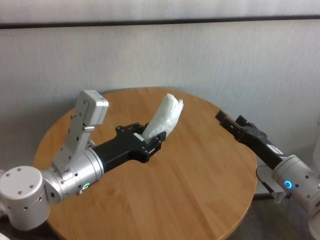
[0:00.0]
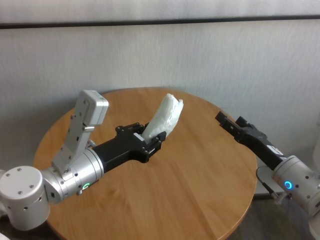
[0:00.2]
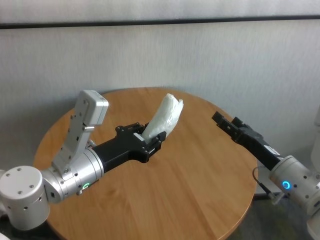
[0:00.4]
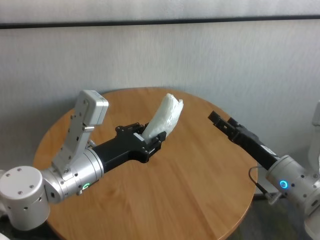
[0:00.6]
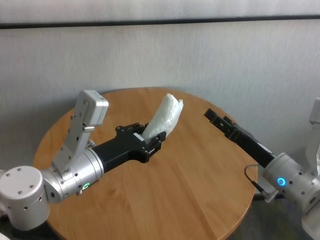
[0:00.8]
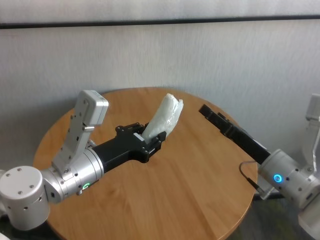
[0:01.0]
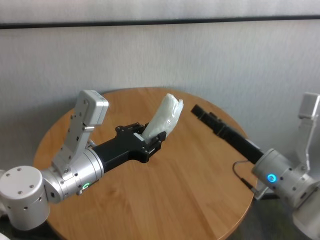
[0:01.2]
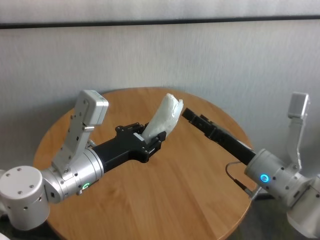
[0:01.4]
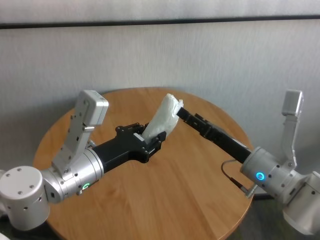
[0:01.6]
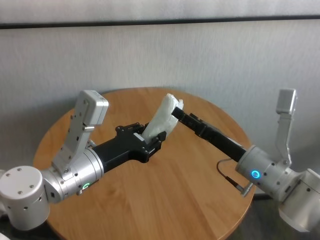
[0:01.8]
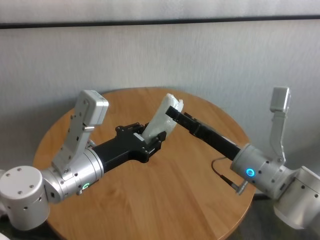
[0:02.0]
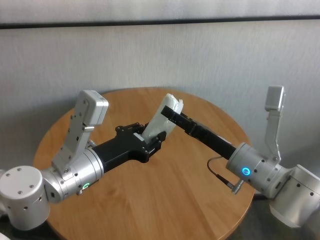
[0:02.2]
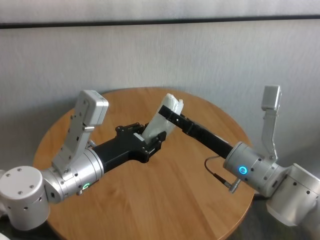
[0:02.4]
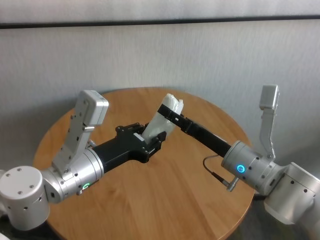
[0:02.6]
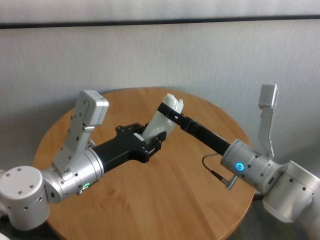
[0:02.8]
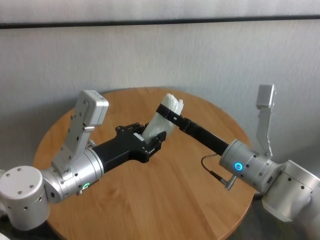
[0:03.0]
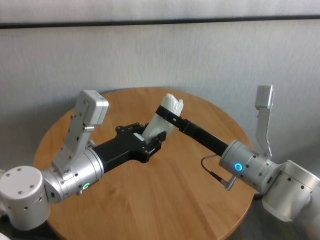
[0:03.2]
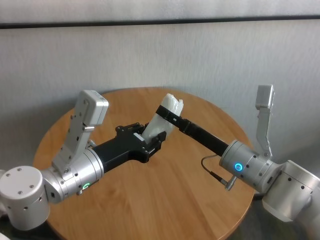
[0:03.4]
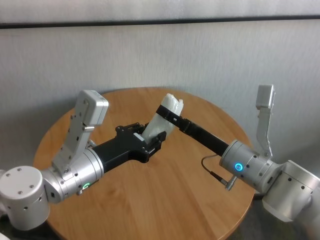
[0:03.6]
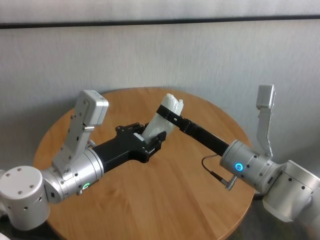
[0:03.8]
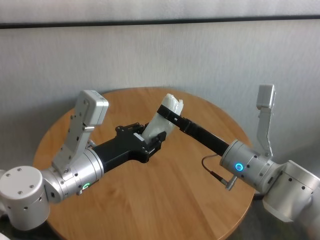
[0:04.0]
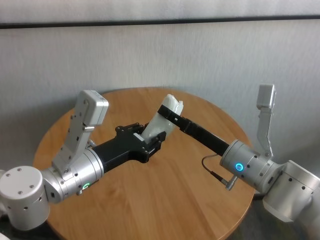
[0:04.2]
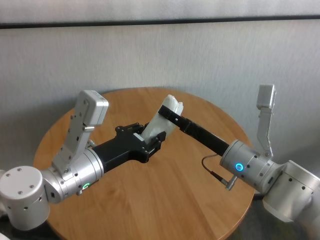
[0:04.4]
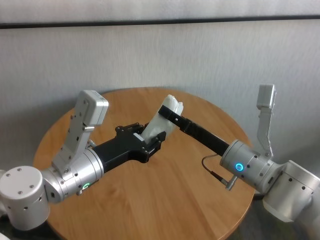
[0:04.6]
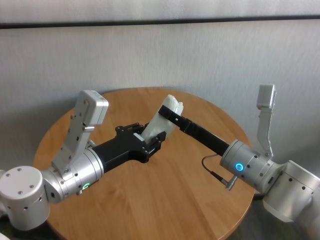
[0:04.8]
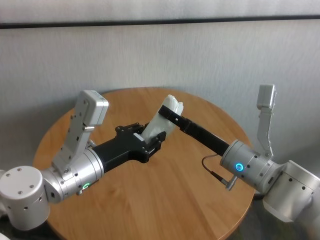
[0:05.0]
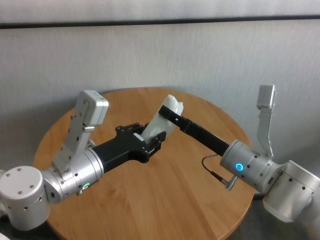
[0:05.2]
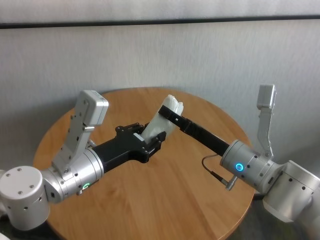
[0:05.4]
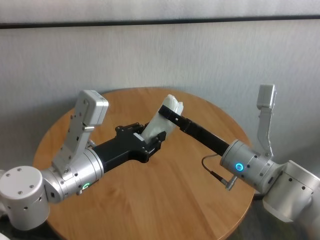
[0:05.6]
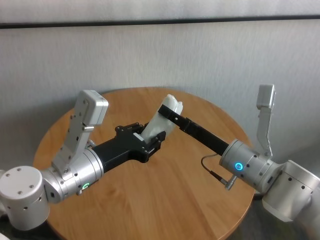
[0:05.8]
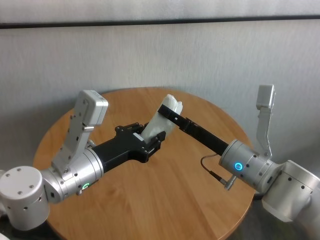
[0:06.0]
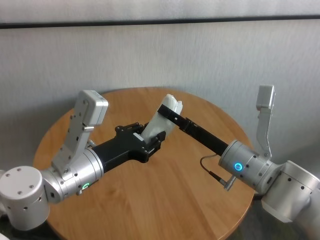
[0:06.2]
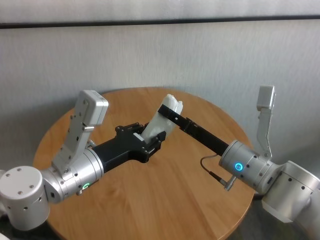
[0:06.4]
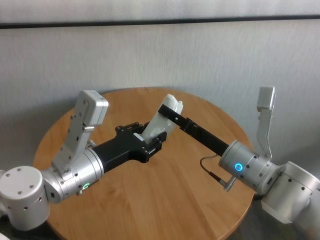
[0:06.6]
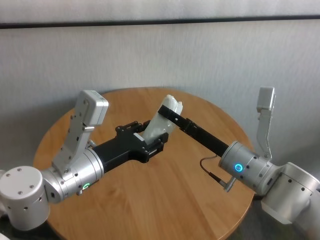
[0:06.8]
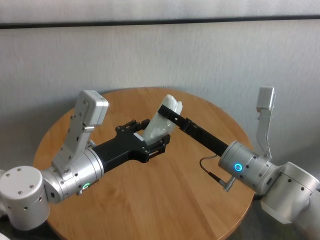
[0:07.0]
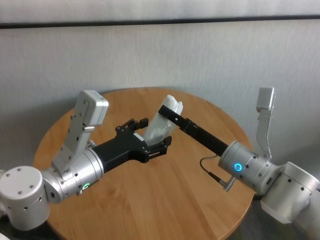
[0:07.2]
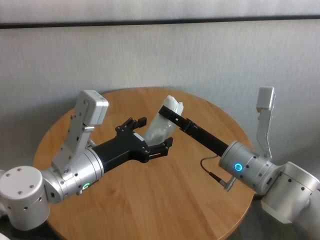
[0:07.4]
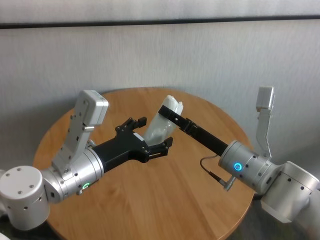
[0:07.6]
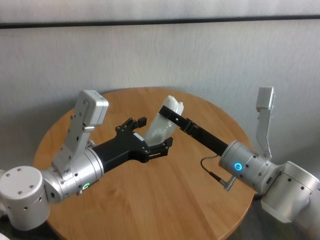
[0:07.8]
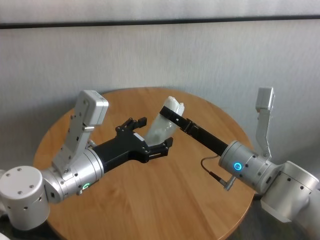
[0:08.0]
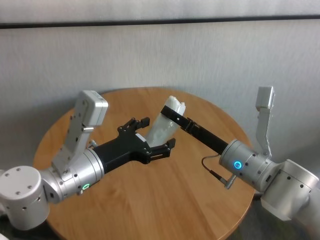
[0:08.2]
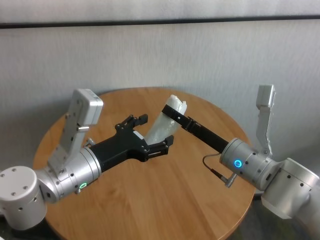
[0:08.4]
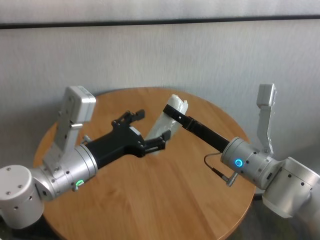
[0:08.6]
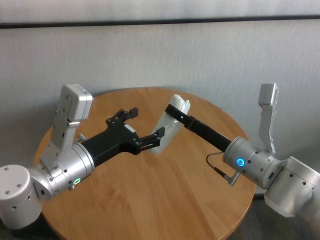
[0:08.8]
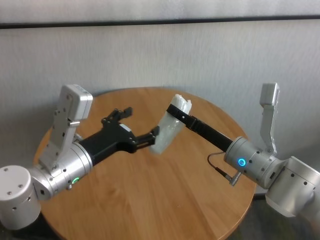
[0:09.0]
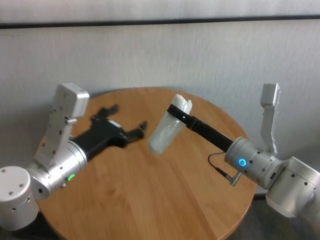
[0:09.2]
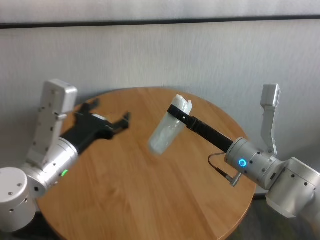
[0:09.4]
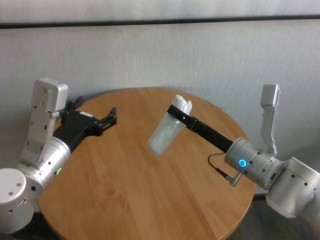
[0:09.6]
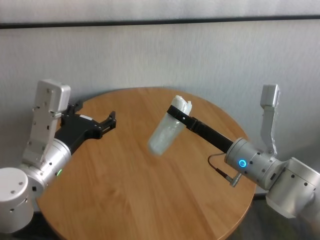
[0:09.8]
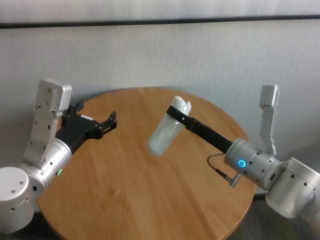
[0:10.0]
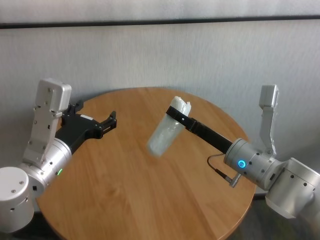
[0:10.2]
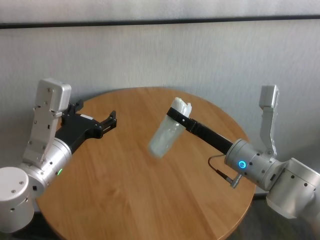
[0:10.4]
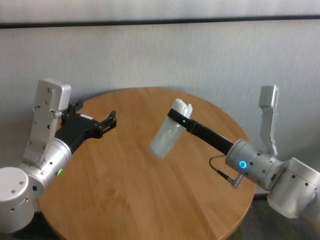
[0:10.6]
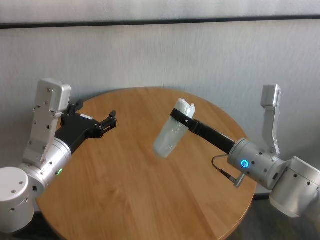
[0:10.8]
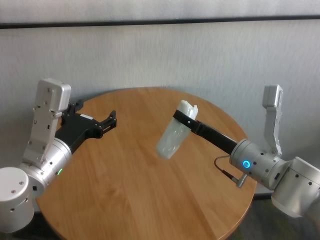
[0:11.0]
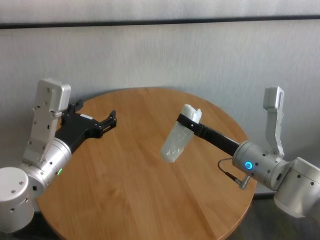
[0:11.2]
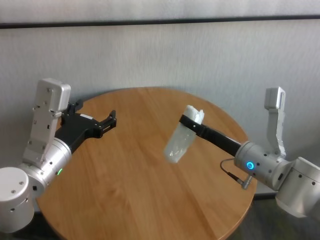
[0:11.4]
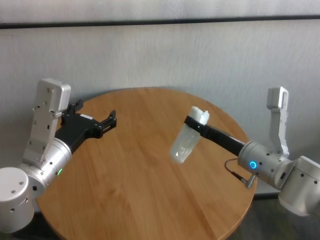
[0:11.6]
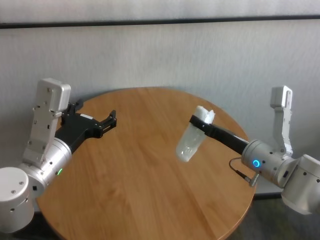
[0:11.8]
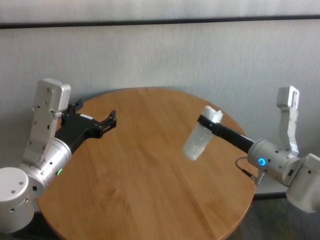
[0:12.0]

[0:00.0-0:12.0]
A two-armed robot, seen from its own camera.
Task of the whole recording: One hand took the sandbag from the other hand and placed it on the table.
Step, 0:00.0 to 0:08.8: Pass the paper ball to the right gripper.

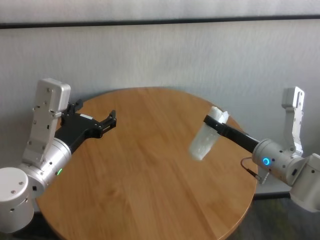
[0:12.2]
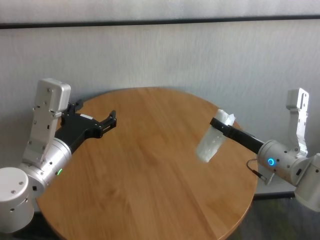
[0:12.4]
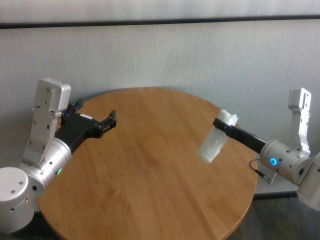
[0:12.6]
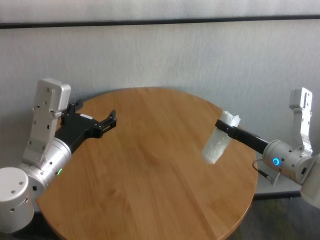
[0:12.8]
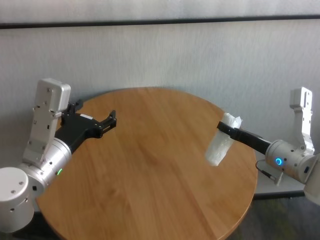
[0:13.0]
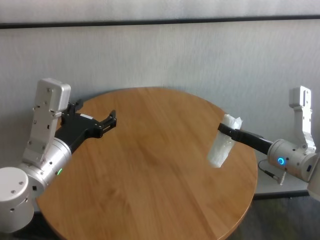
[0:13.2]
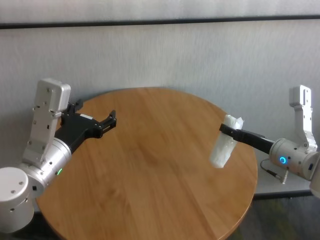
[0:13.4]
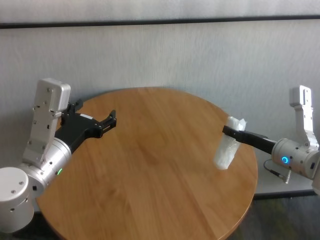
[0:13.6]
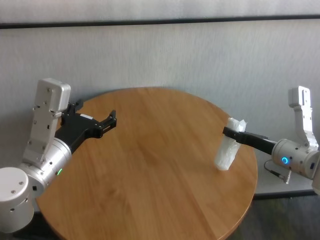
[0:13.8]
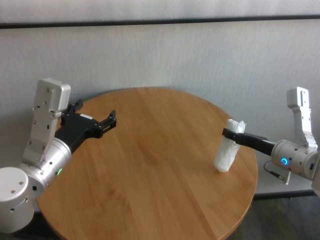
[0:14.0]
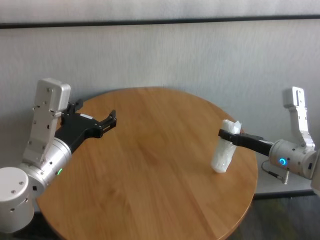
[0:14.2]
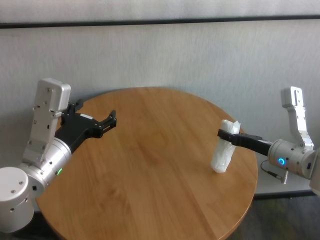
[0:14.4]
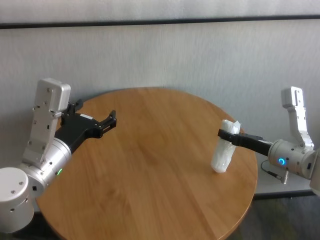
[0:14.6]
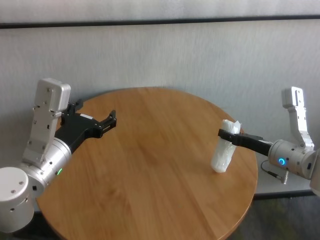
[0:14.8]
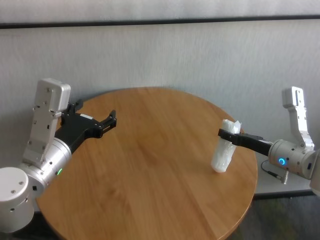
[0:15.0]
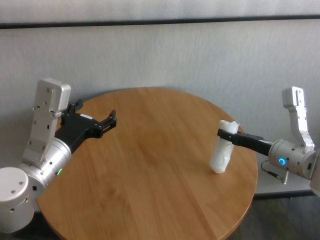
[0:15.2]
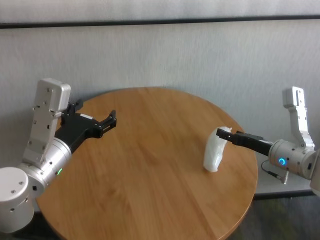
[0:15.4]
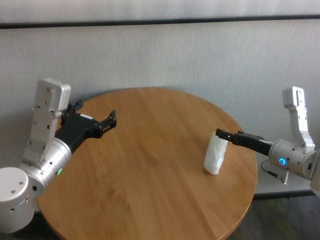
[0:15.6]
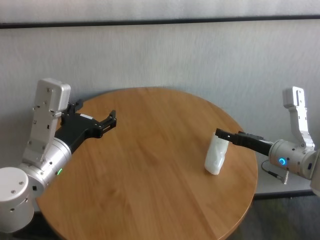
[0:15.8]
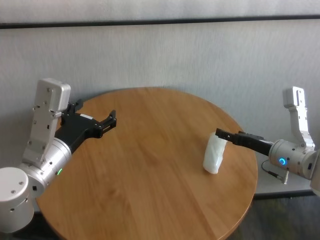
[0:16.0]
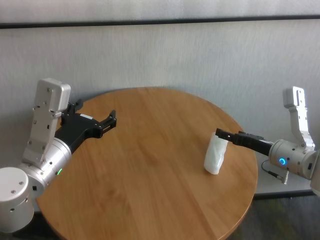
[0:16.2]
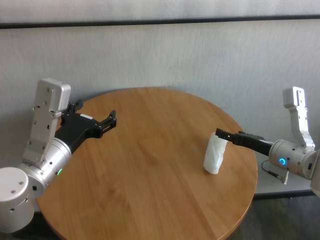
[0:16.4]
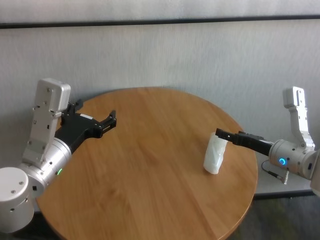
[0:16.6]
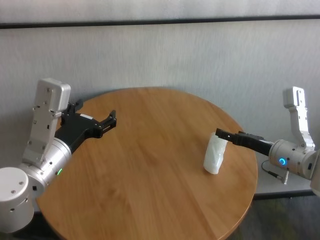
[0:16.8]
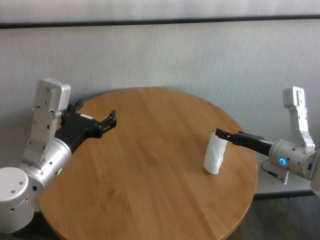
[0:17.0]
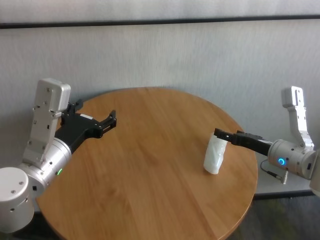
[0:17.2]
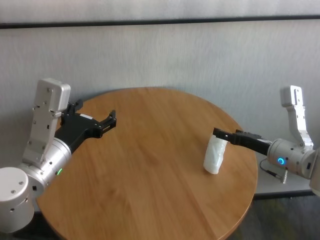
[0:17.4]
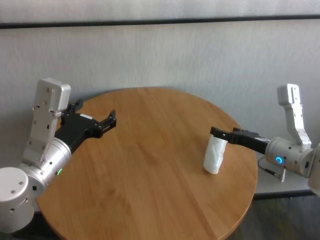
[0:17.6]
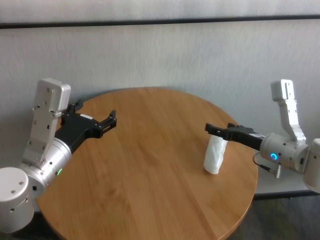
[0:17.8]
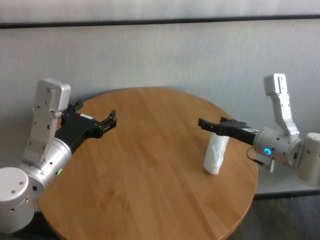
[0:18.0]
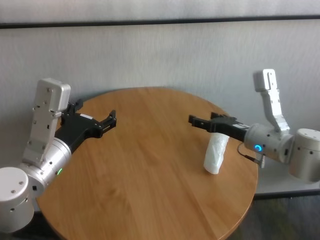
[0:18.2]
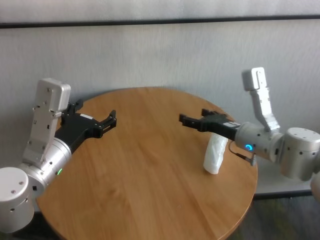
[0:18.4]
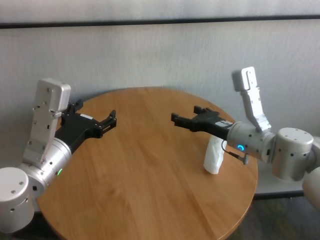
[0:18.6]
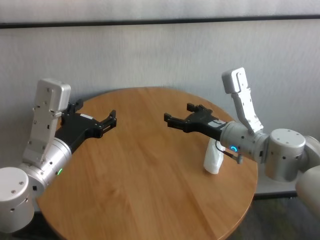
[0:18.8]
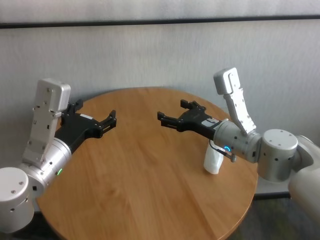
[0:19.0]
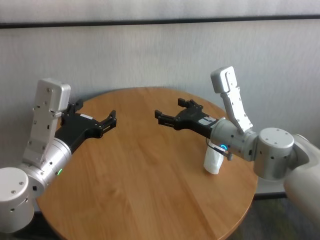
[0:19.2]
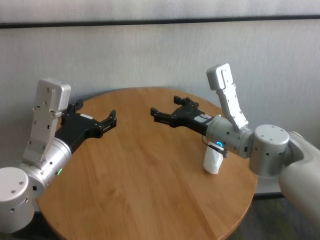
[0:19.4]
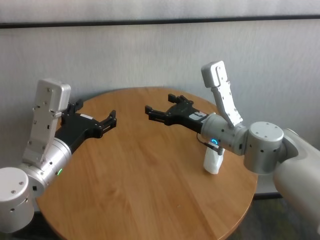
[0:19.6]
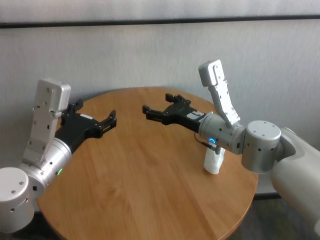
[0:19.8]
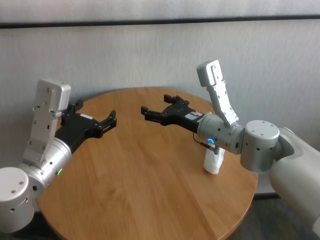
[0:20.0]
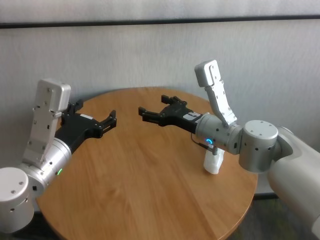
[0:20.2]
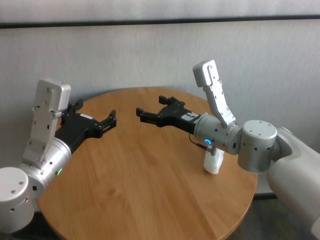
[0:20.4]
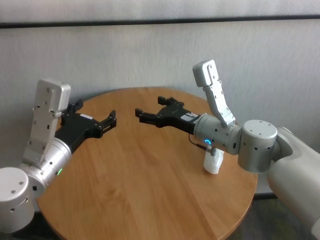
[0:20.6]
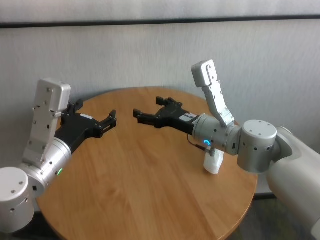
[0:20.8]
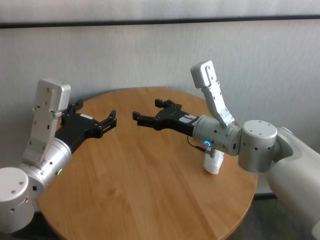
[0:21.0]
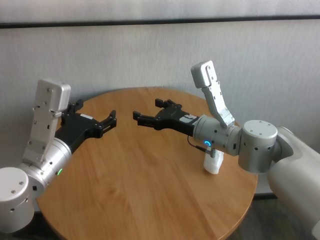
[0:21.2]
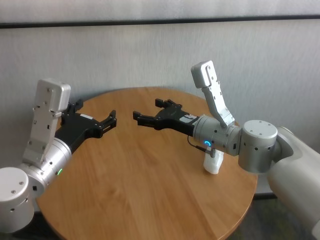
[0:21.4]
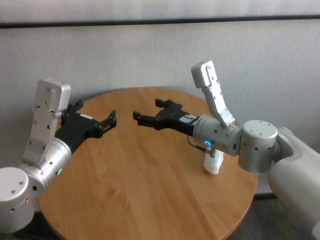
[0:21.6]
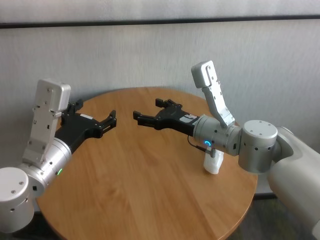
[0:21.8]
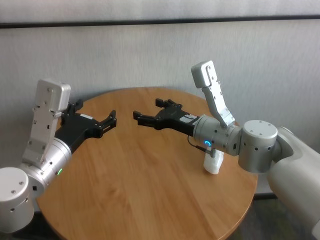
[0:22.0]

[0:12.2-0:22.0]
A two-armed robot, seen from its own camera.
Task of the whole recording: One hand took the sandbag from the other hand and placed it on the table.
Step, 0:12.2 to 0:15.6: Place the paper ball on the table with right gripper.
